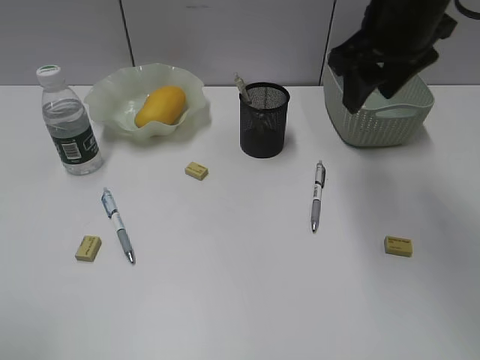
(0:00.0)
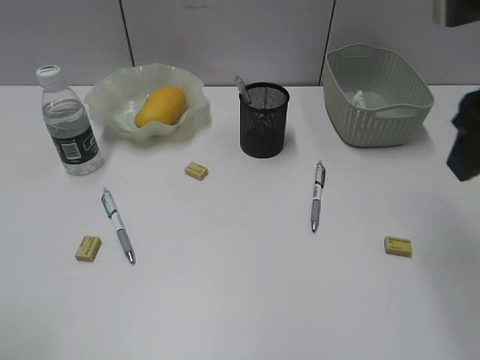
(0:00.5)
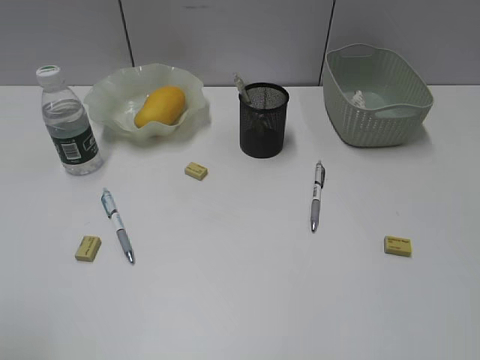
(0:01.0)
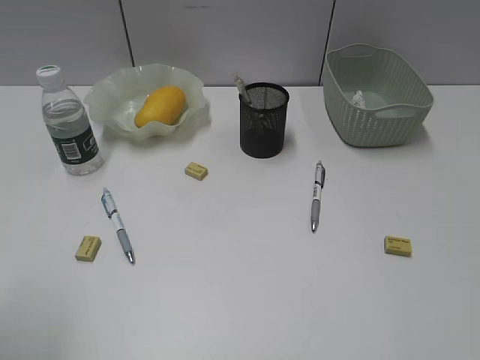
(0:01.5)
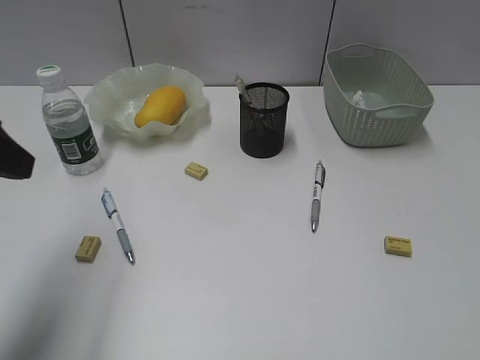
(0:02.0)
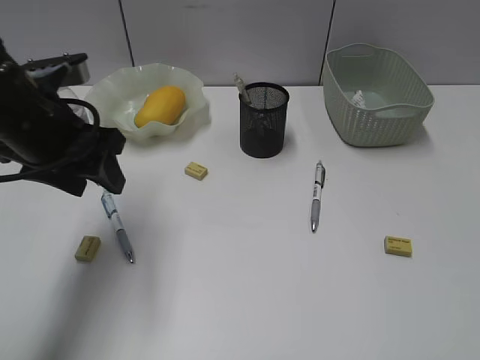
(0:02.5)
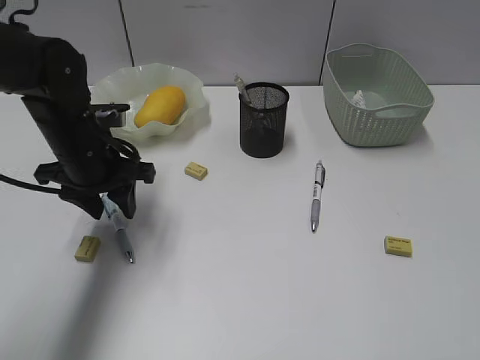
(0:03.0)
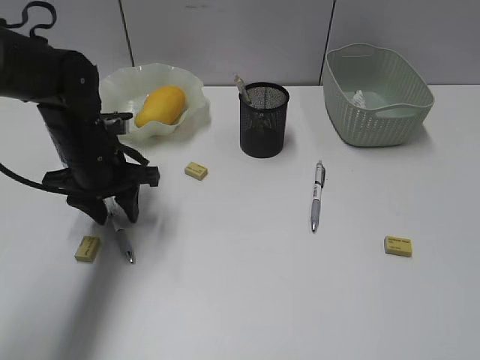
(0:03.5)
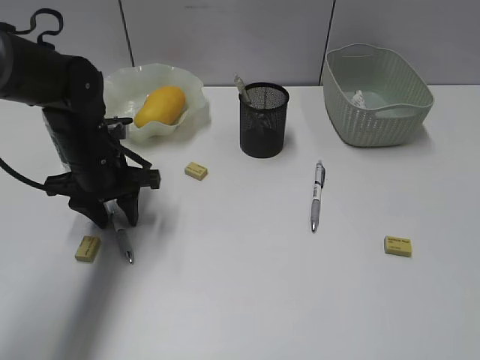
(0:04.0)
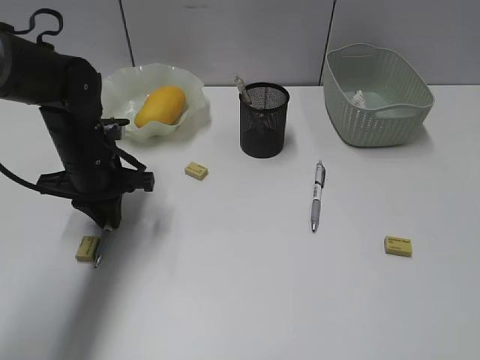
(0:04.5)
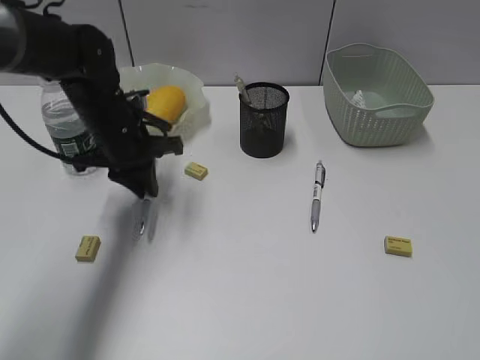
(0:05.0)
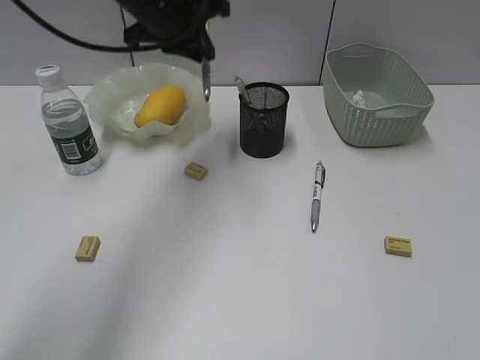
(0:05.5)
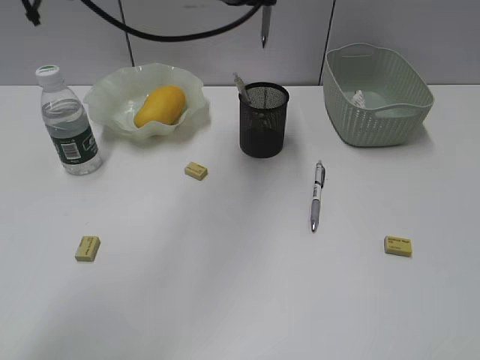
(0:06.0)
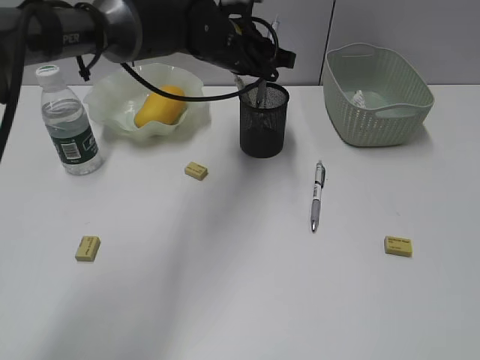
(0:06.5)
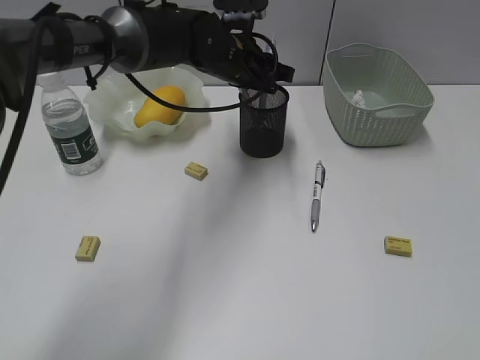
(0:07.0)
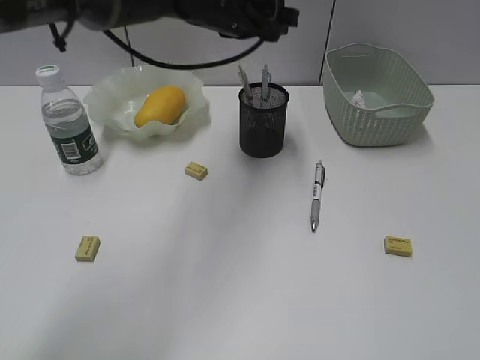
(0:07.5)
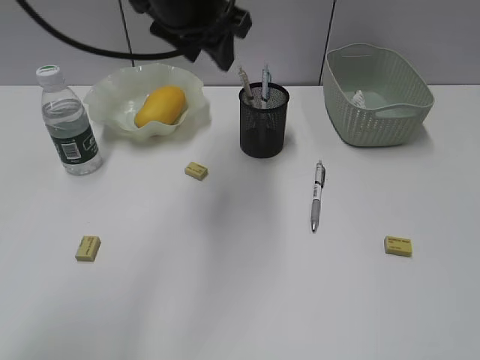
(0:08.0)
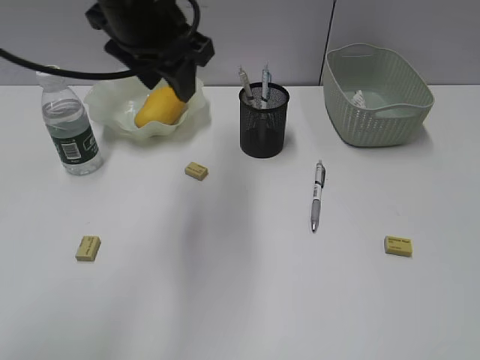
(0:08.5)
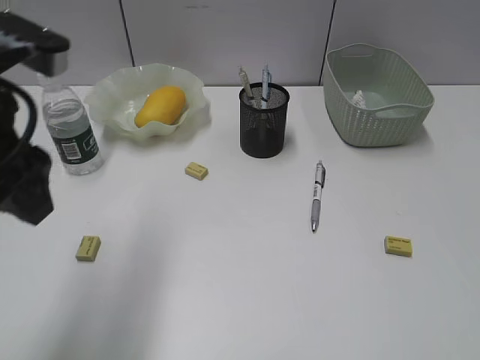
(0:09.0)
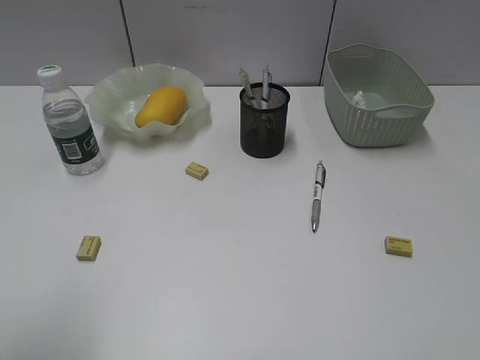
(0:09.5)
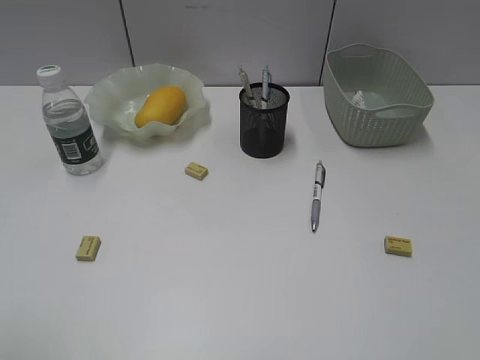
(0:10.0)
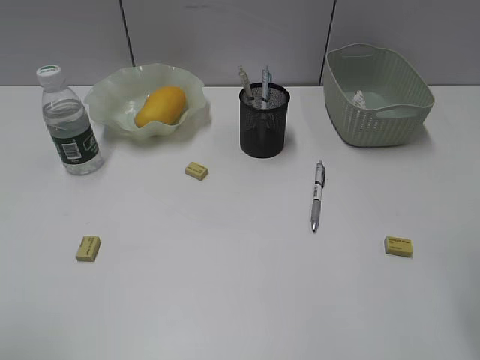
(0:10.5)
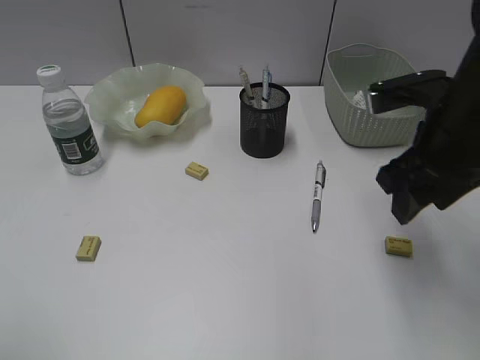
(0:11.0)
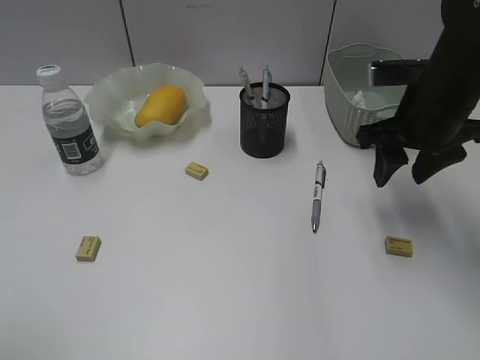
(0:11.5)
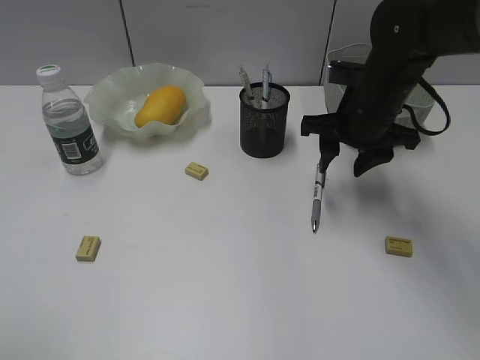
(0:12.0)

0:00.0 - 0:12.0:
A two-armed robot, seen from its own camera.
Step, 0:00.0 - 0:04.0: Grasp the blue pen with left gripper.
Step, 0:04.5 - 0:07.0: Place the blue pen in pen holder with left gripper.
0:00.0 - 0:02.0: The left gripper is displaced forward by some 15 cm. The right gripper is displaced backward and to the right by roughly 35 cm.
0:02.0 - 0:04.0: The left gripper heads downward, forward and to the right, covering roughly 25 cm.
0:04.0 - 0:06.0: The left gripper moves upward, to the right and forward, some 25 cm, and closes its fingers.
0:06.0 - 0:08.0: The left gripper goes some 5 cm backward, goes downward and returns, approximately 10 cm each way, and opens.
0:08.0 - 0:10.0: The left gripper moves backward and to the left, about 40 cm.
0:10.0 - 0:12.0: The right gripper is displaced forward and to the left by some 35 cm.

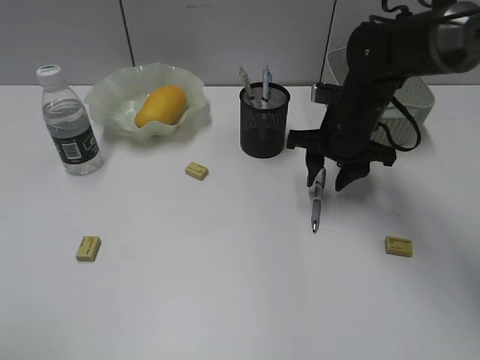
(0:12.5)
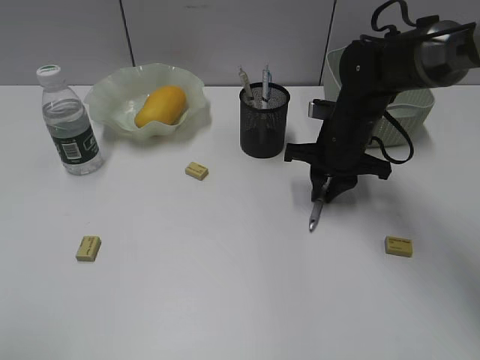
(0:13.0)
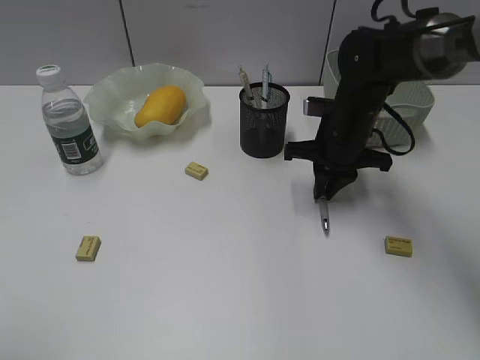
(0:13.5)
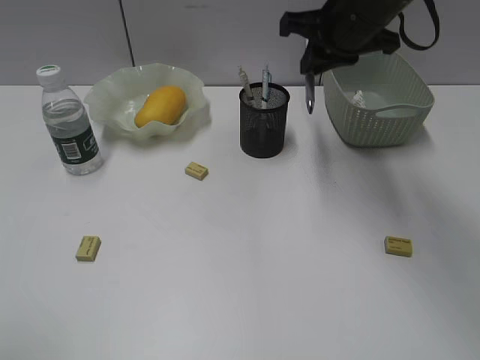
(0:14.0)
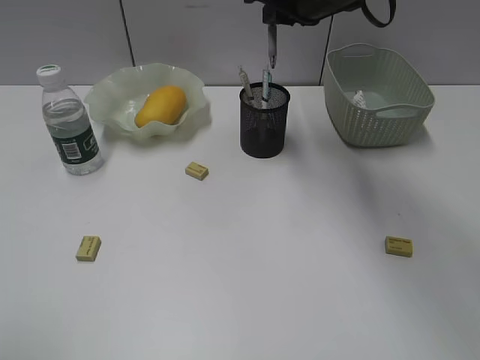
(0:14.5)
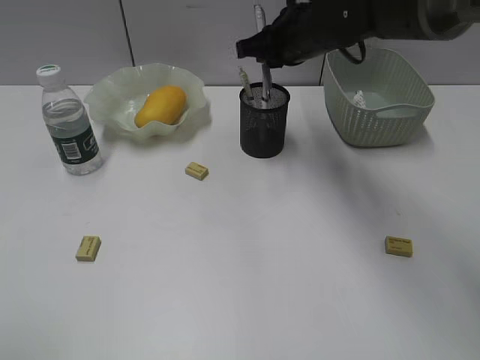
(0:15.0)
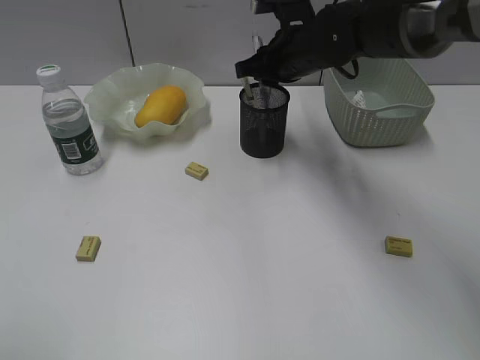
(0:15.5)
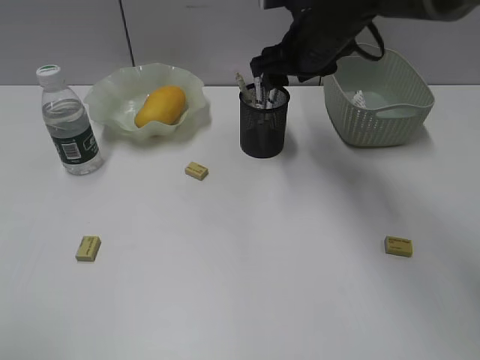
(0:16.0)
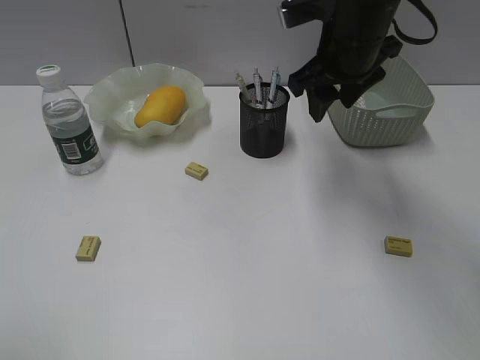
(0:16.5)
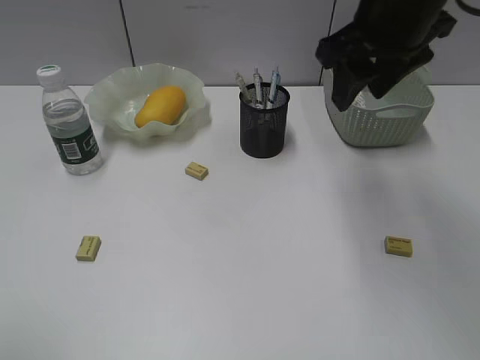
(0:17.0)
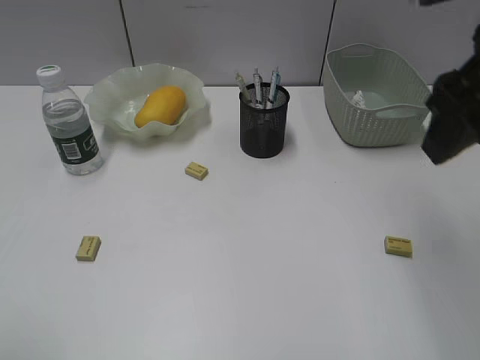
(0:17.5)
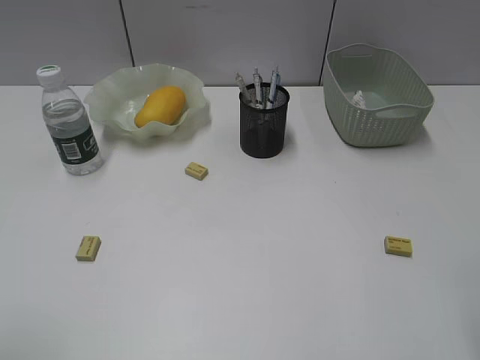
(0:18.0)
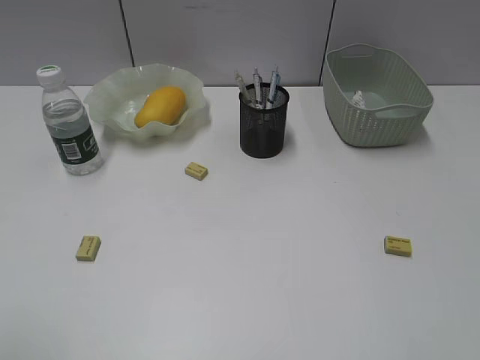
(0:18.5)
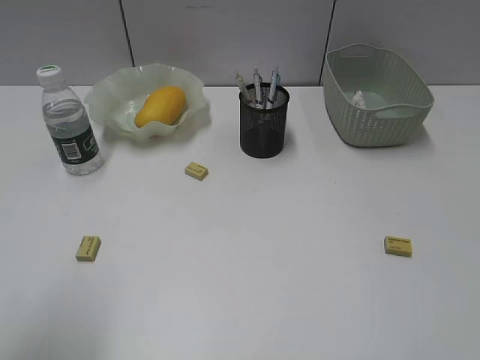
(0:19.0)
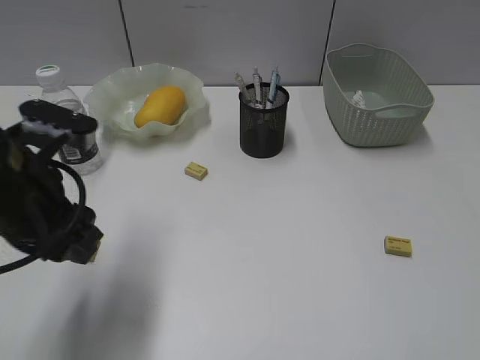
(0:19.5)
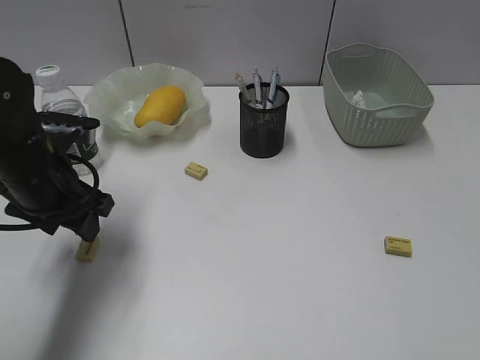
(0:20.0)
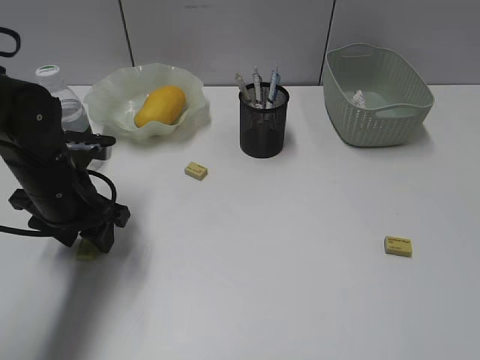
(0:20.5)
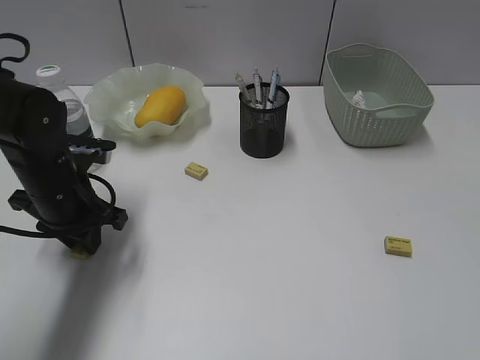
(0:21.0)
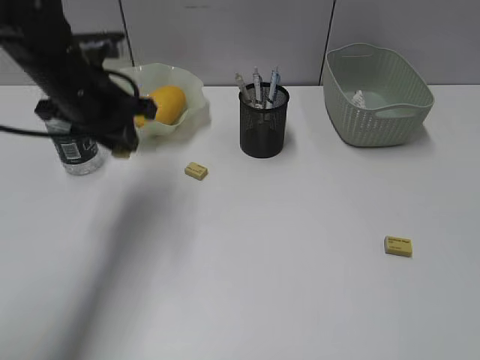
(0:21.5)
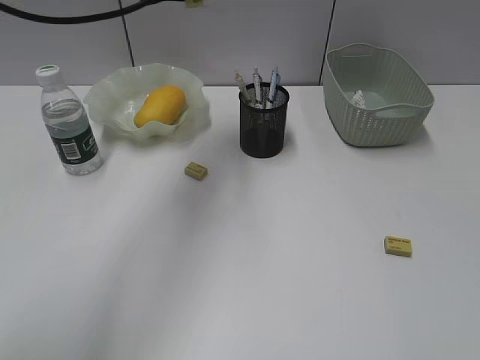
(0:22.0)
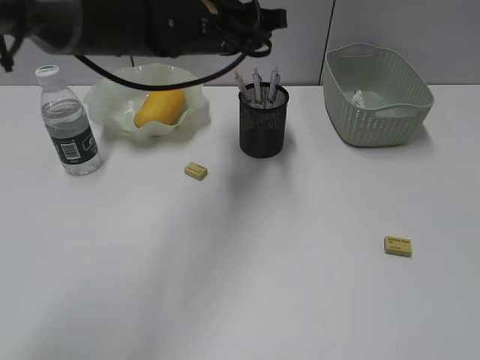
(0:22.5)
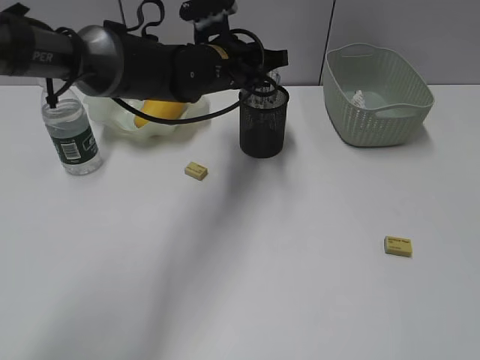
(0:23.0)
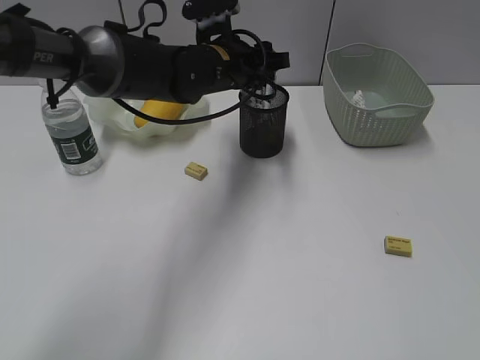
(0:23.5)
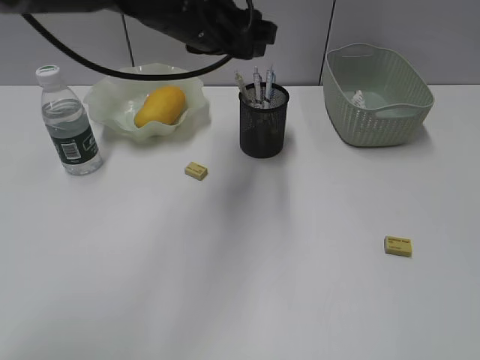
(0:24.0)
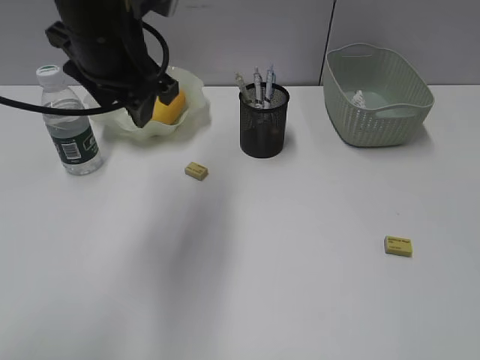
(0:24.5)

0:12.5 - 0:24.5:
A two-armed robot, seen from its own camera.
Step, 0:13.5 - 0:15.5: Place the gray pen in pen holder with right gripper.
Step, 0:16.0 - 0:21.0: Grasp the eraser with left gripper.
Step, 0:21.5 - 0:23.5: Place the eraser in pen holder with left gripper.
0:12.5 - 0:14.5: The right gripper is displaced upward by roughly 15 cm, and closes.
0:14.5 - 0:16.5: The right gripper opens up.
0:16.5 - 0:18.5: The right gripper heads backward and to the right, covering some 40 cm.
0:18.5 - 0:20.5: The left gripper goes roughly 30 cm forward and downward.
0:20.5 - 0:22.5: The left gripper moves to the right, upward and forward, about 25 cm, and closes.
0:22.5 - 0:24.5: The left gripper travels backward and to the left by approximately 10 cm, and opens.

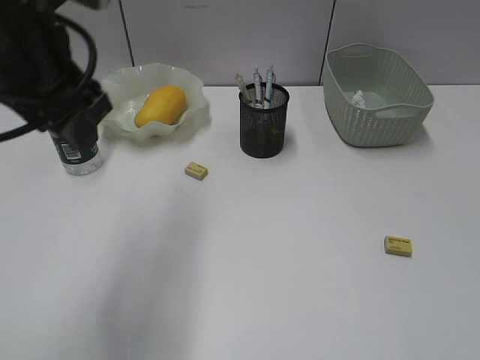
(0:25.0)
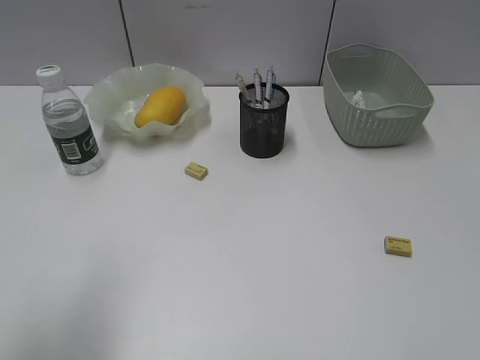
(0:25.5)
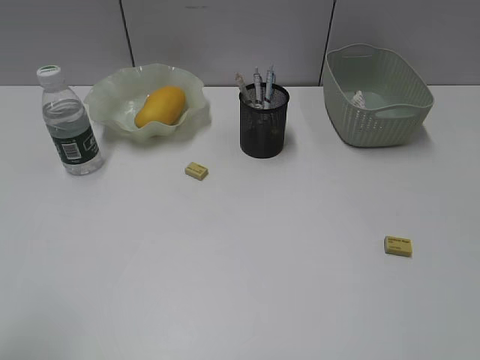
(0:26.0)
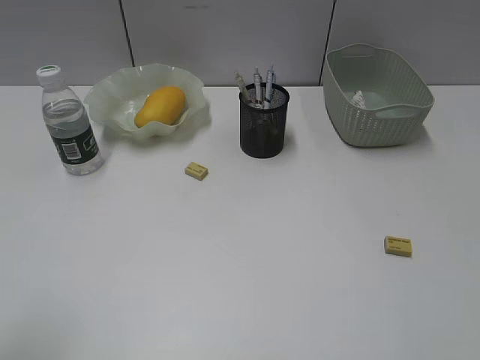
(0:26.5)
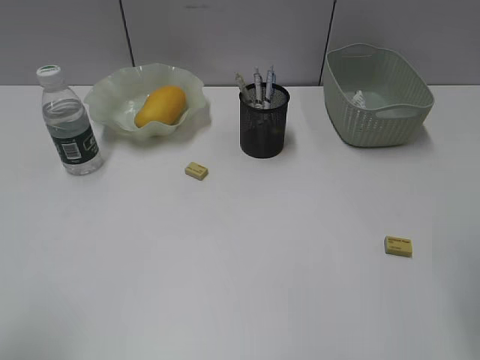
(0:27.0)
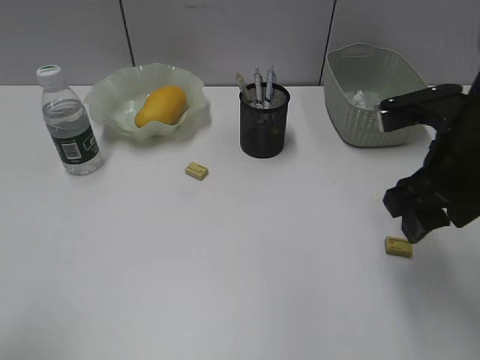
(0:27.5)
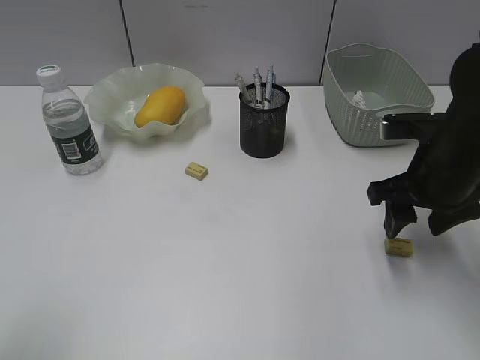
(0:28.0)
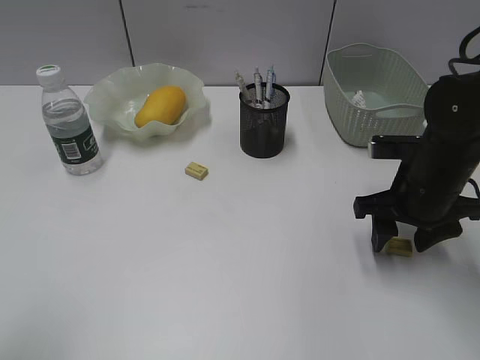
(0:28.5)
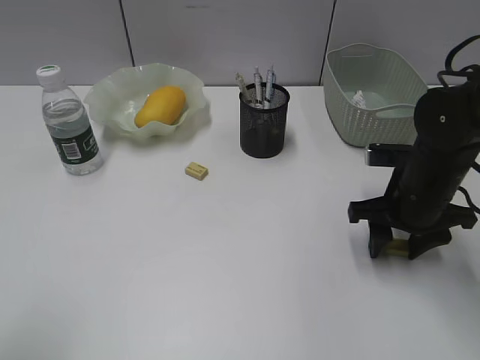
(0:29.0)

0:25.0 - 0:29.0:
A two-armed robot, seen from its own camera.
0:25.0 - 0:27.0: The right gripper is displaced forward by about 10 cm, while the left gripper goes approximately 25 cm backward and to the left.
0:27.0 - 0:29.0: The right gripper shifts about 25 cm downward and forward.
